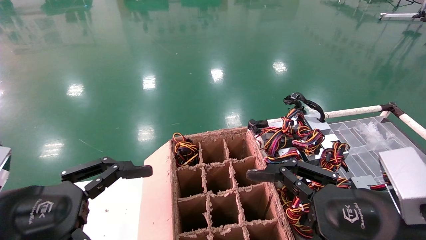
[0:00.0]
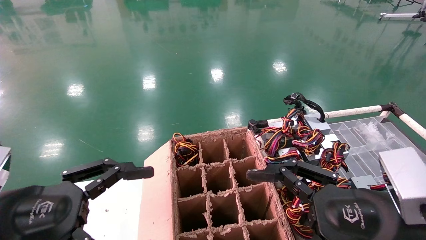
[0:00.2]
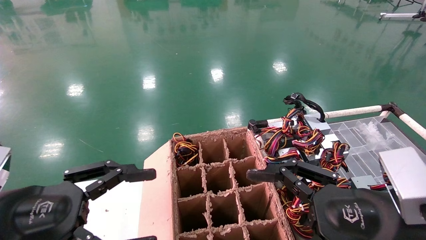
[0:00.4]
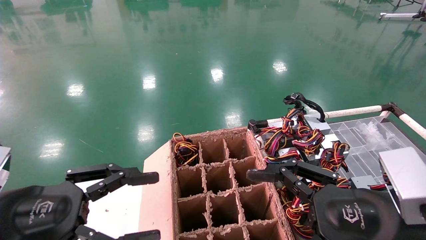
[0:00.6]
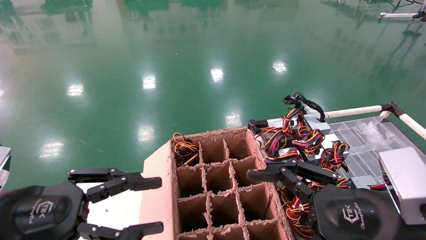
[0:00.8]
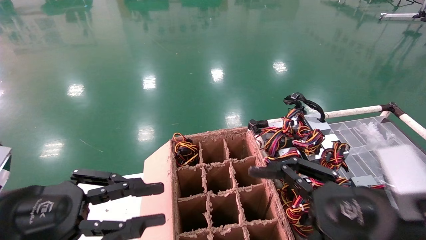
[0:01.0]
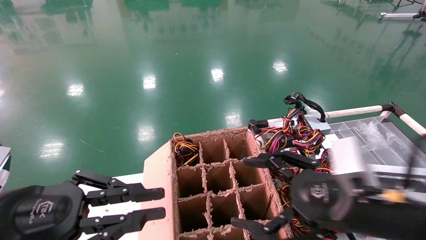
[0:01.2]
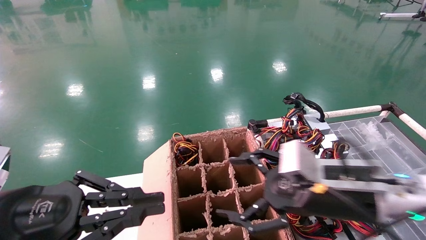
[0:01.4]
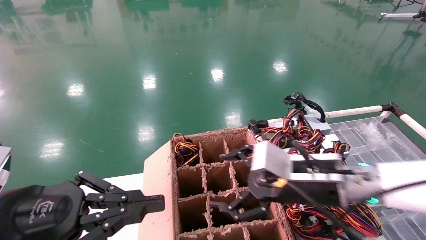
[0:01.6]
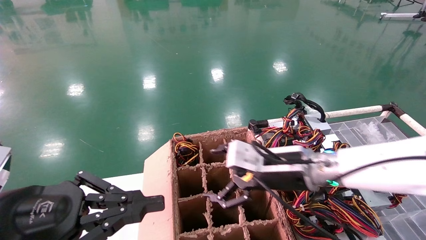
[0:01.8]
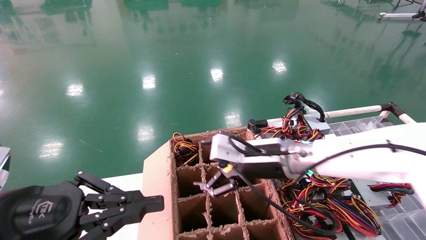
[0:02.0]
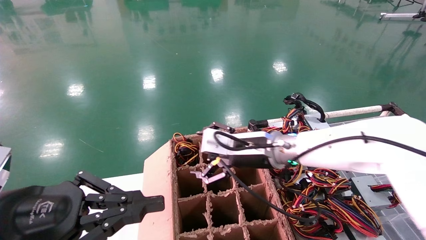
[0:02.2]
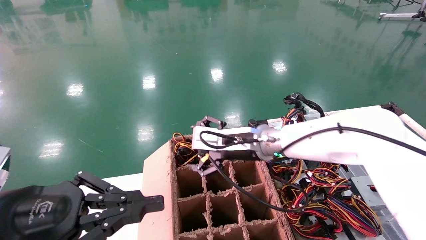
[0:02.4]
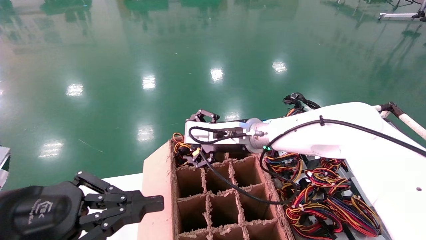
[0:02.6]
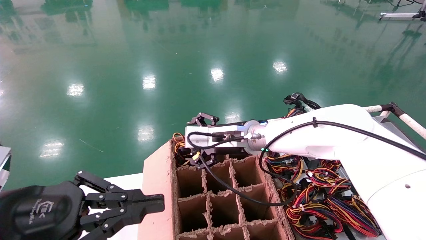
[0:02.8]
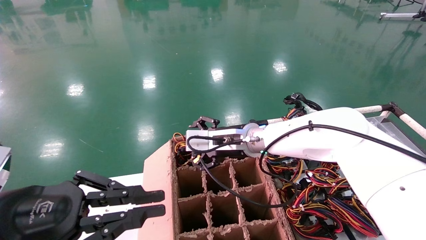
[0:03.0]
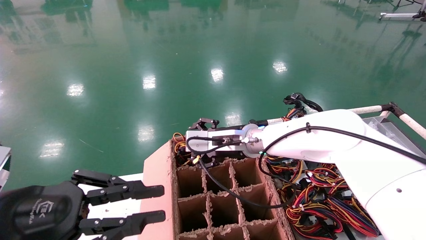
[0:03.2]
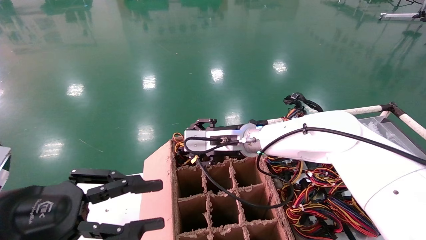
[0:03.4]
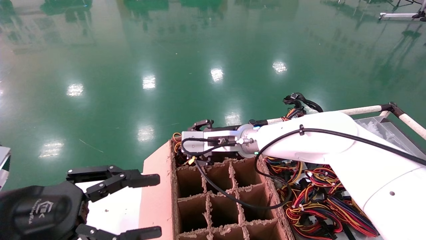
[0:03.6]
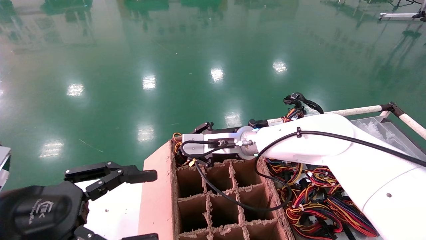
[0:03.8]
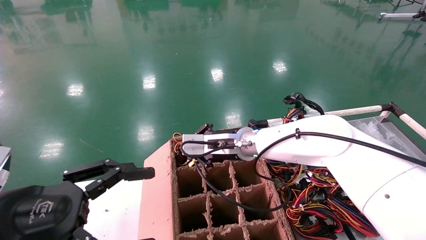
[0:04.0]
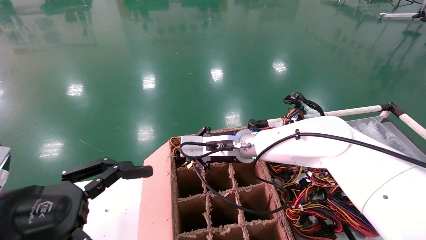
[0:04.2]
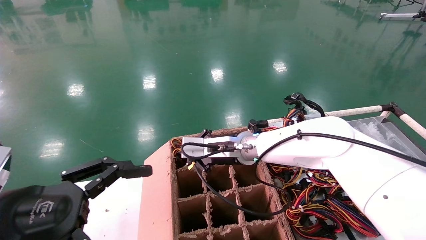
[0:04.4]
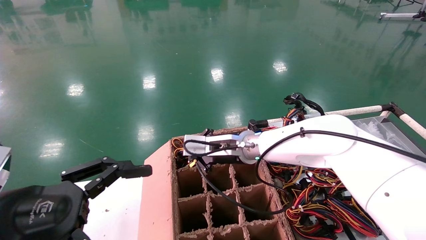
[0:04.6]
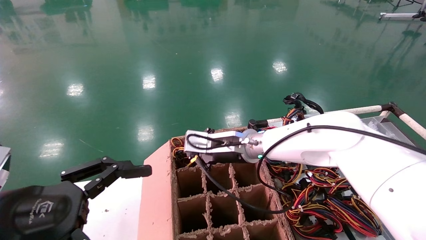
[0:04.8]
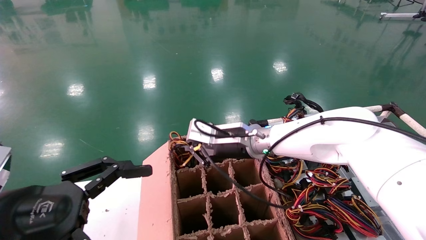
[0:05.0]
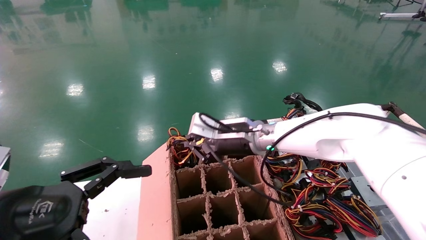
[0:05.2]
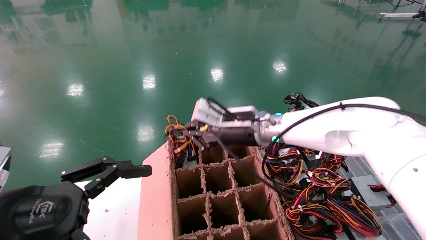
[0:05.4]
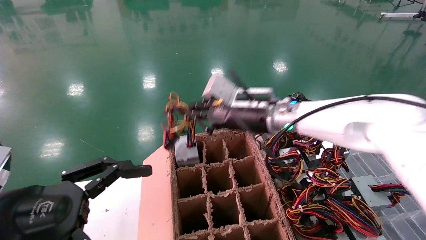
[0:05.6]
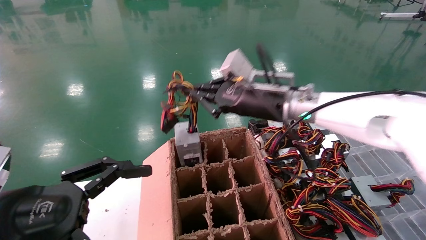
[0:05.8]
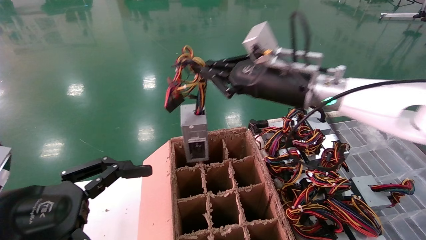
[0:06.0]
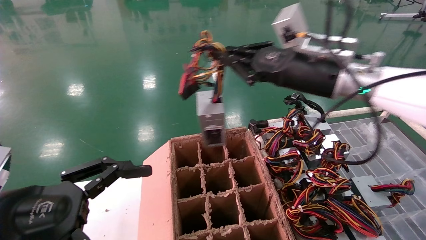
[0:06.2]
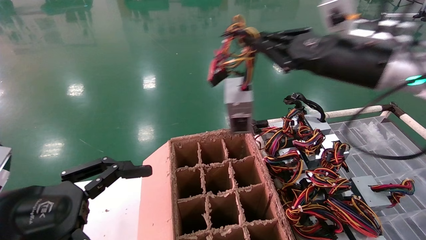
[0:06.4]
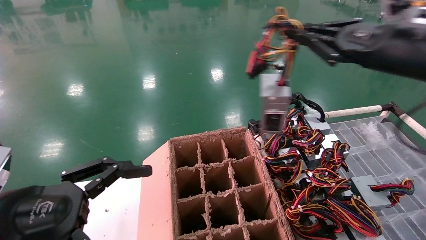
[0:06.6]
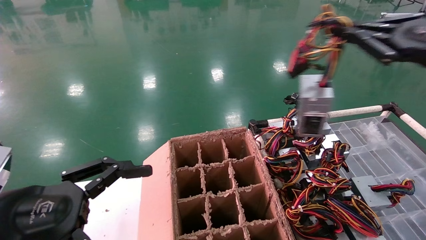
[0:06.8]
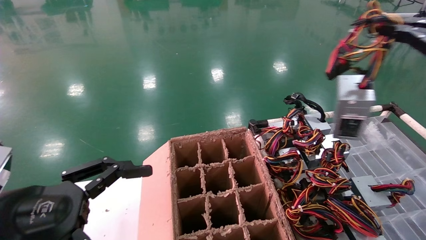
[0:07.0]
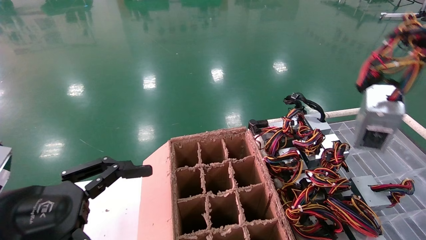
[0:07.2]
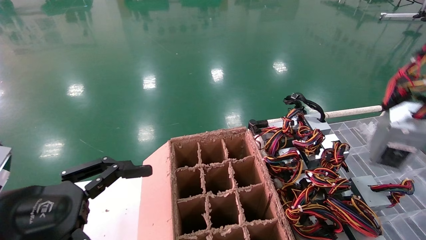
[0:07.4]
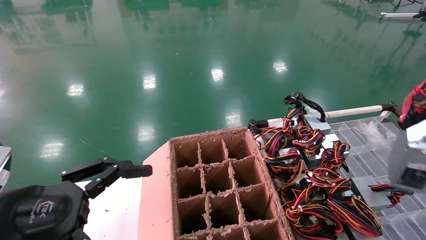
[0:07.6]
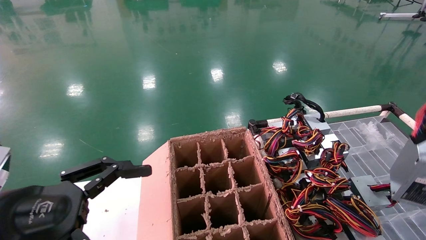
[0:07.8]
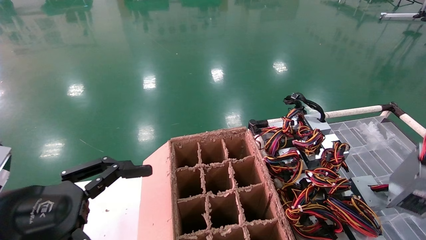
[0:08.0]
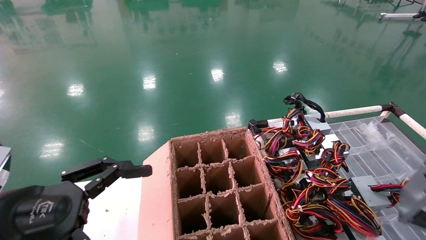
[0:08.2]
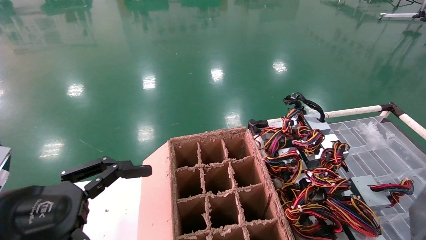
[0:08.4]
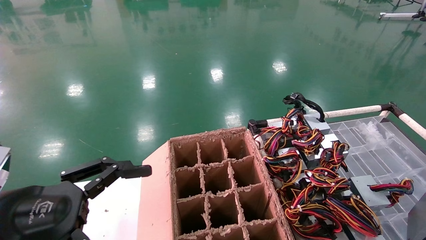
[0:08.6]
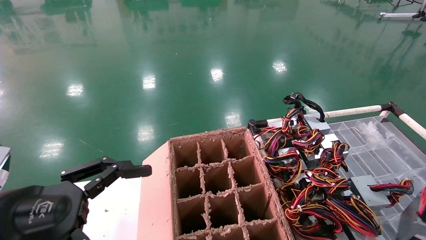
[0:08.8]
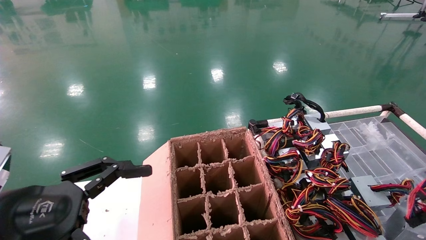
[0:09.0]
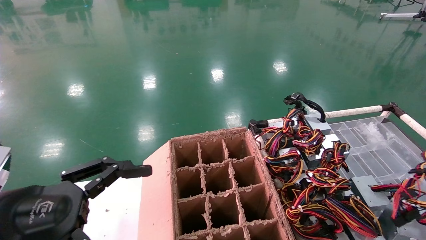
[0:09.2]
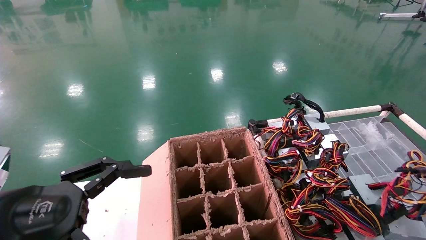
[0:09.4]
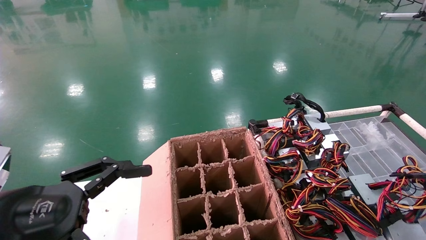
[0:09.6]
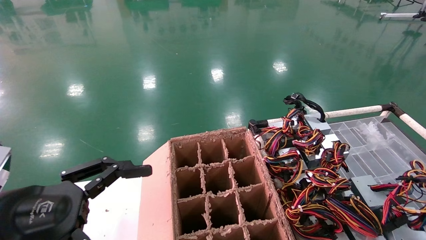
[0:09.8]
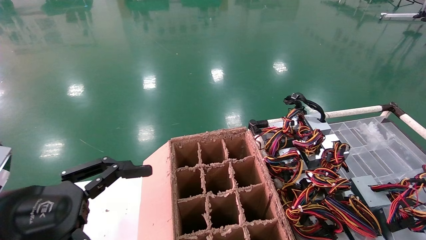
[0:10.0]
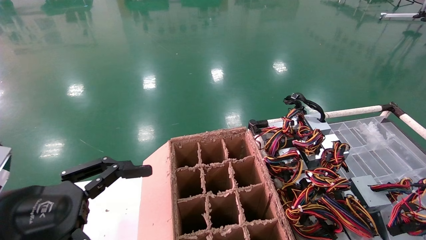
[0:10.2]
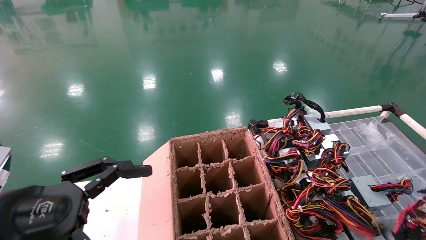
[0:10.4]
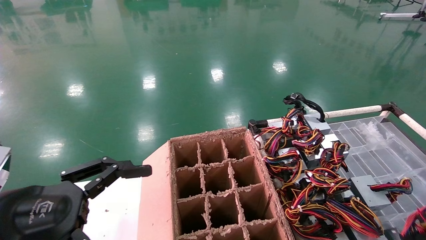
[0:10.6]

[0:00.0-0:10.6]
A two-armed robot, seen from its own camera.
Step, 0:01.6 to 0:04.8: Grab and lift the power supply from the large box.
0:00.0 to 0:01.6: The left gripper closes, while the right gripper shifts approximately 15 cm forward and to the left.
0:01.6 to 0:03.0: The right gripper goes about 15 cm forward and to the left.
0:03.0 to 0:04.6: The left gripper opens its fingers. The right gripper closes up.
0:04.6 to 0:06.0: The right gripper moves upward, to the right and backward, some 20 cm.
0:06.0 to 0:07.6: The right gripper heads to the right and backward, covering roughly 40 cm.
0:07.6 to 0:09.0: The right gripper heads downward, covering roughly 10 cm.
0:09.0 to 0:10.6: The right gripper goes approximately 5 cm downward.

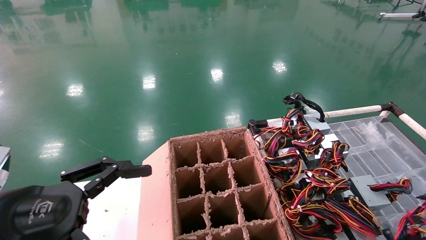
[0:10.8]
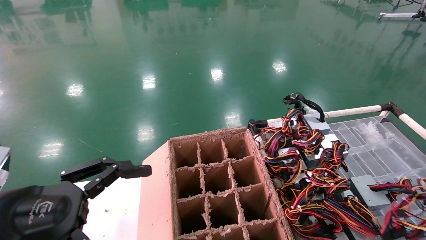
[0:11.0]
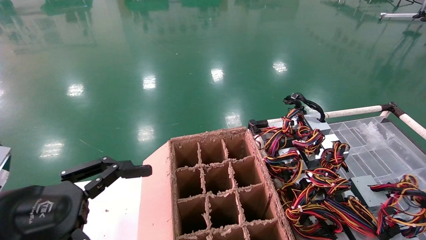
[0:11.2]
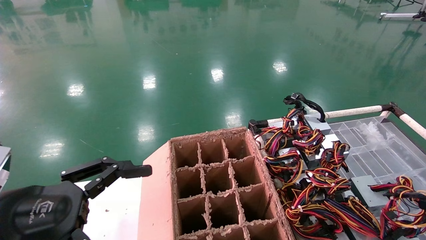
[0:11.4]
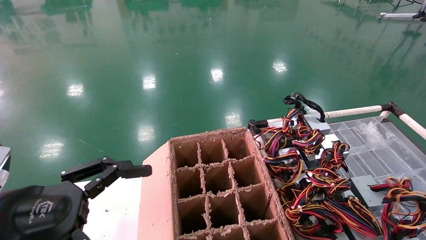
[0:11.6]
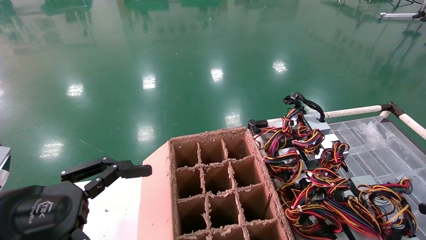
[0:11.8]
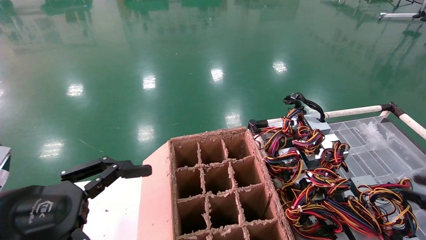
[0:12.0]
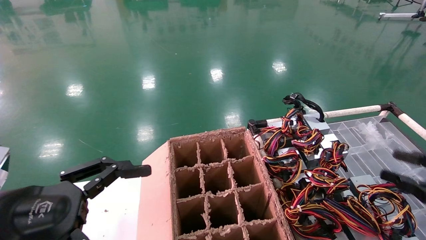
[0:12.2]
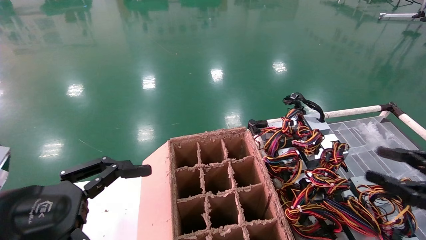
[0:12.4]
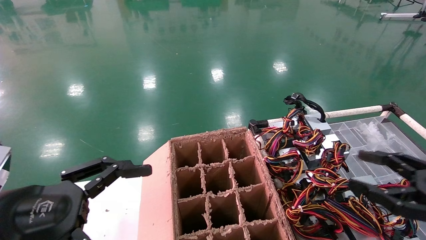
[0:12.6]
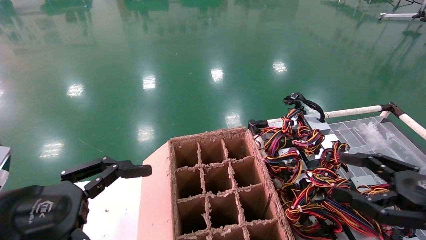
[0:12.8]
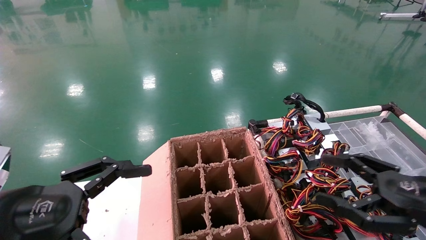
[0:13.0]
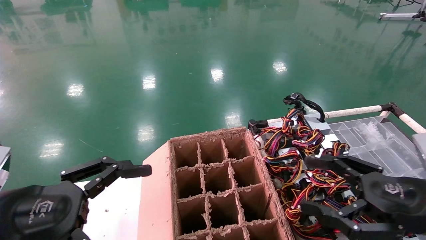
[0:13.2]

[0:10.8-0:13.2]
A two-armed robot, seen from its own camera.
0:10.8 to 0:12.0: The right gripper shifts by some 5 cm, and opens.
0:12.0 to 0:13.2: The right gripper heads to the left, covering about 15 cm, and opens.
